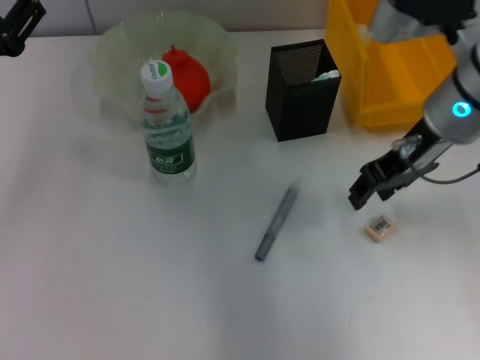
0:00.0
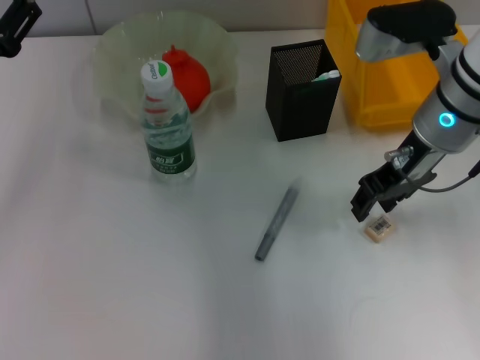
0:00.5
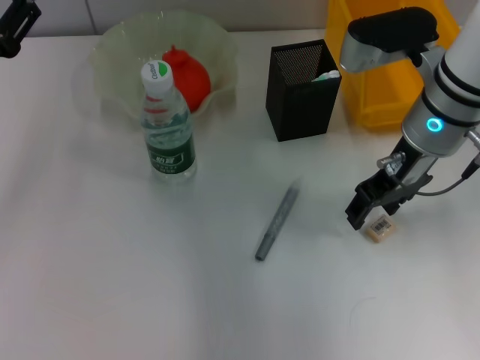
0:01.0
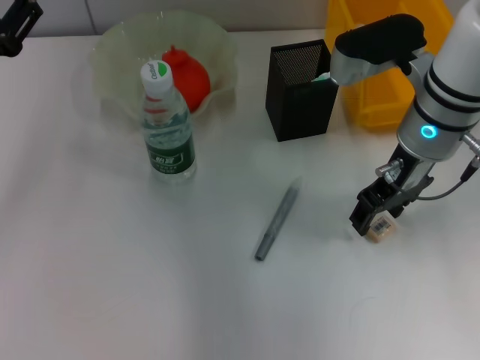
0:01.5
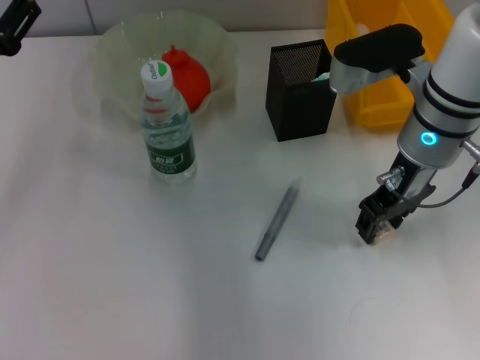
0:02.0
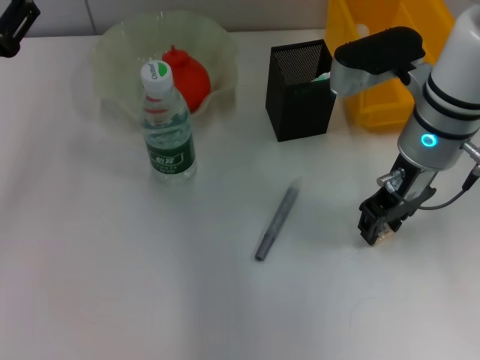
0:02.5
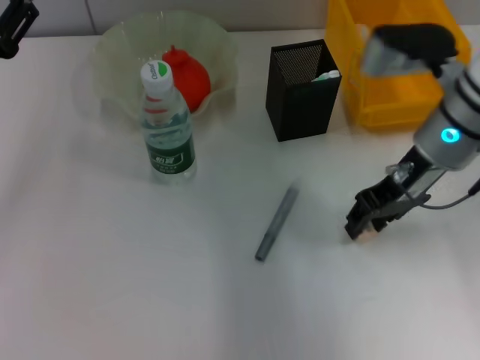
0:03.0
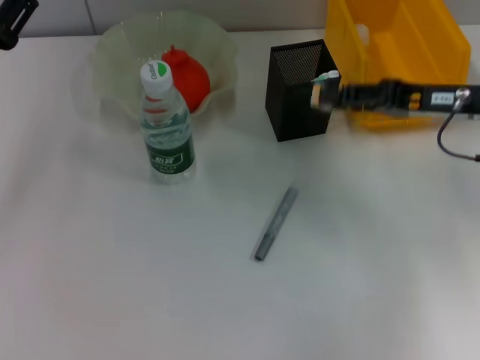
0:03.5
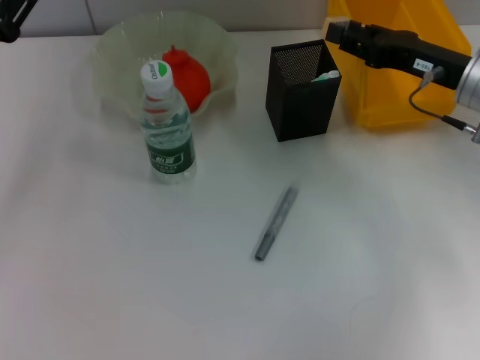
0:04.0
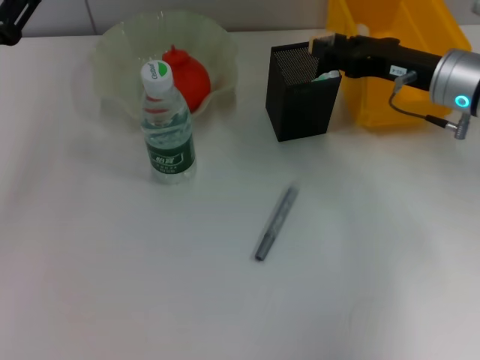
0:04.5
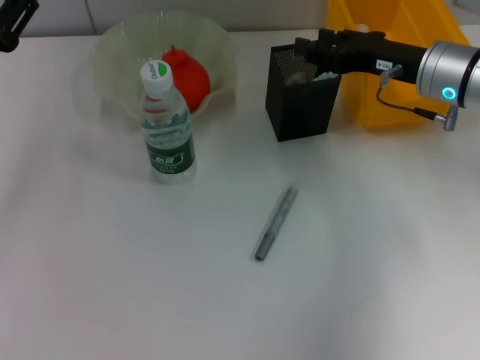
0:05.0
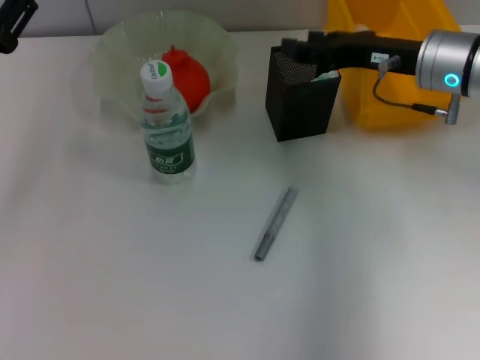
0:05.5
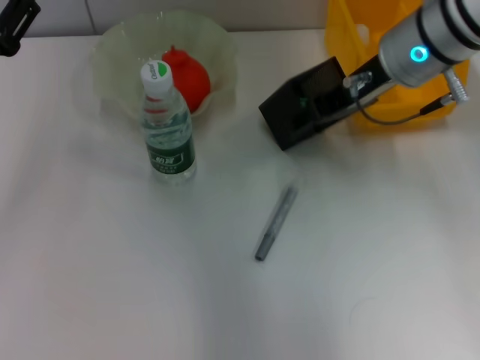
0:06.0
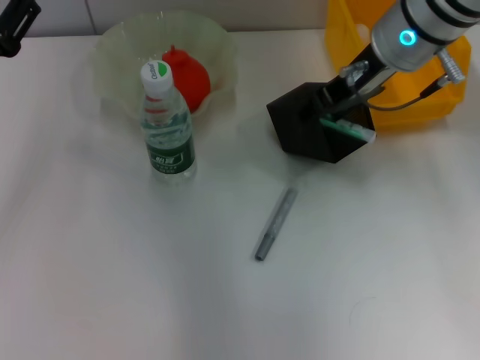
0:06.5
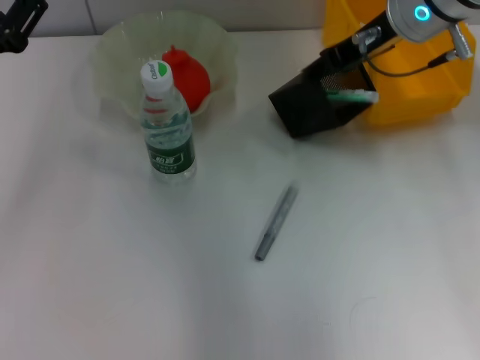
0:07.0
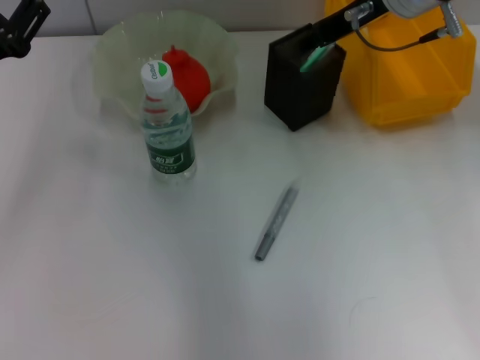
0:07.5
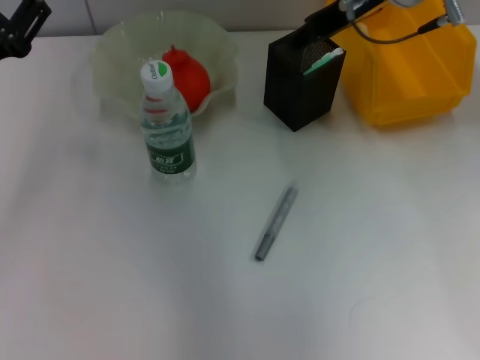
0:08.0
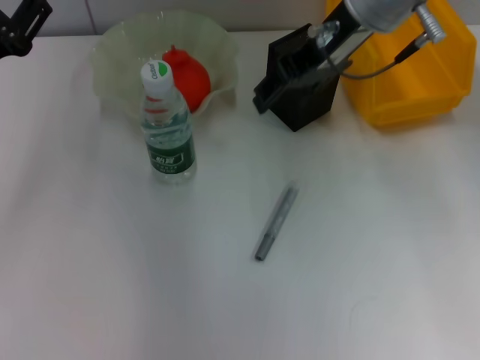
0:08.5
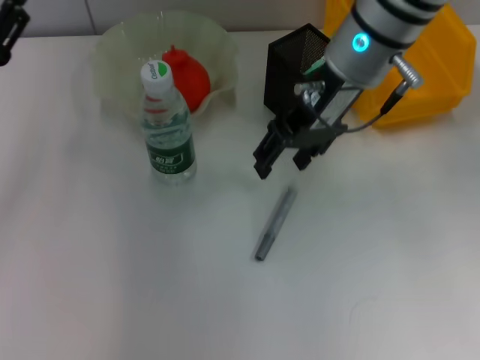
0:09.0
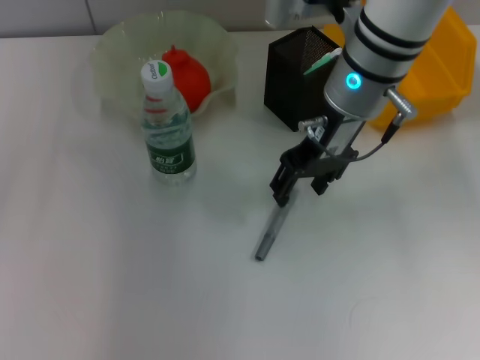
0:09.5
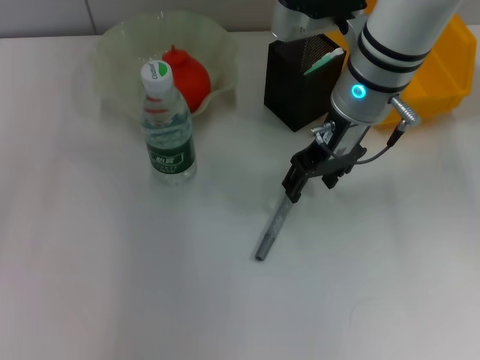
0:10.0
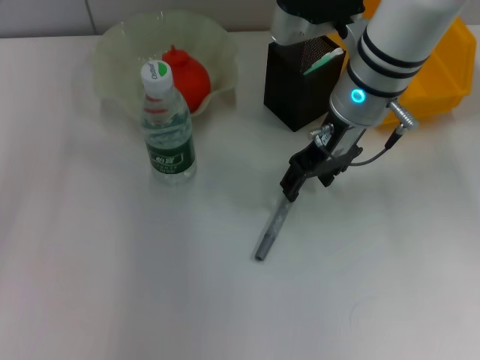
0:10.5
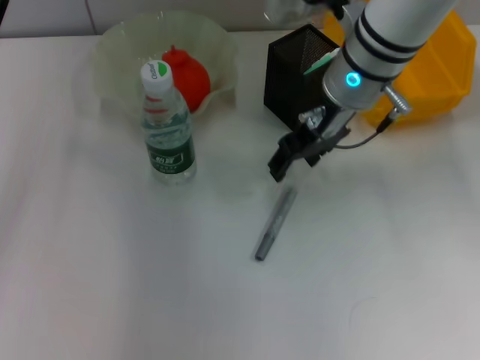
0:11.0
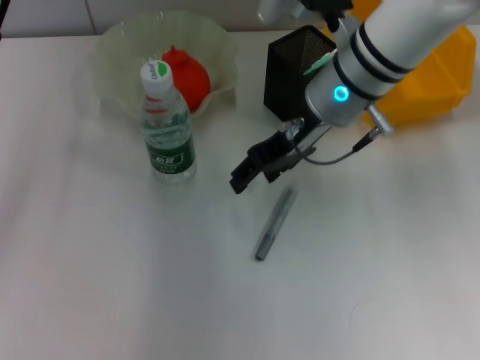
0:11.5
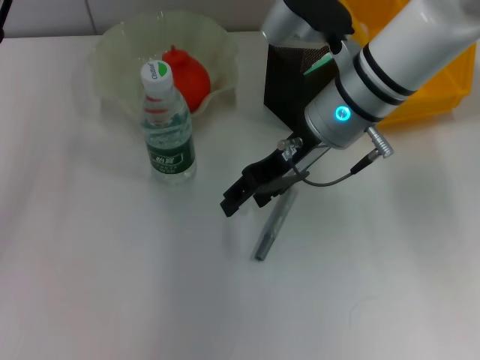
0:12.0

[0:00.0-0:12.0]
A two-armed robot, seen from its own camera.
Step, 0:00.0 to 0:02.0: Grab the eraser with the right hand.
Step, 0:02.5 to 0:05.0: Put the eraser into the pen holder with the right hand.
0:00.0 to 0:02.0: The grippers move only a little.
0:02.0 to 0:04.0: The right gripper shifts about 10 cm to the right.
0:04.0 to 0:06.0: The right gripper moves to the left and upward, about 15 cm, and opens.
0:06.0 to 0:08.0: The right gripper moves approximately 5 cm.
0:08.0 to 0:10.0: The right gripper travels downward by roughly 10 cm.

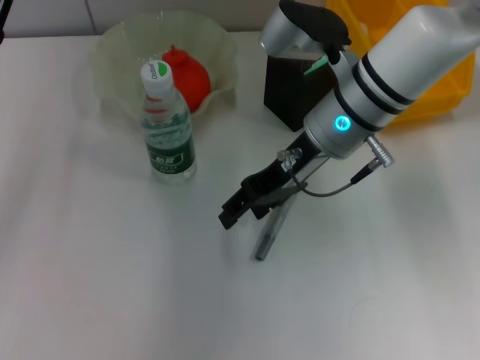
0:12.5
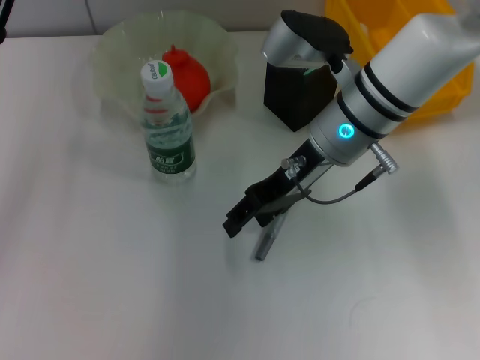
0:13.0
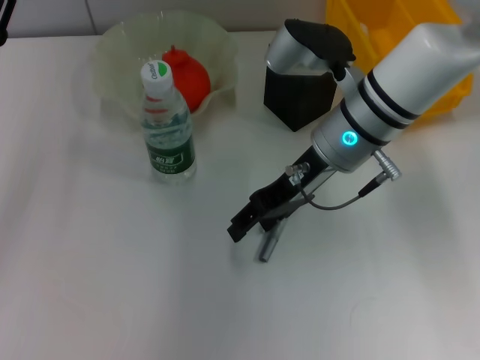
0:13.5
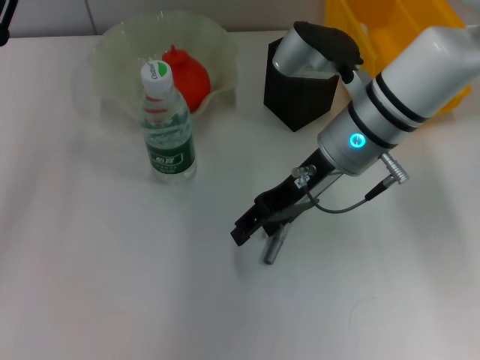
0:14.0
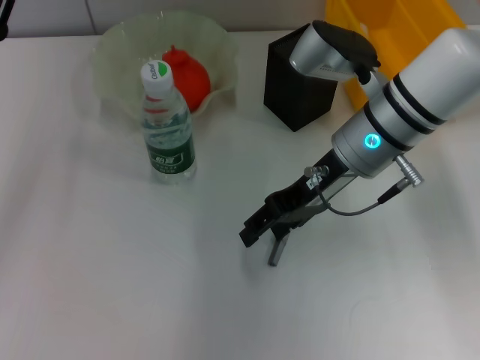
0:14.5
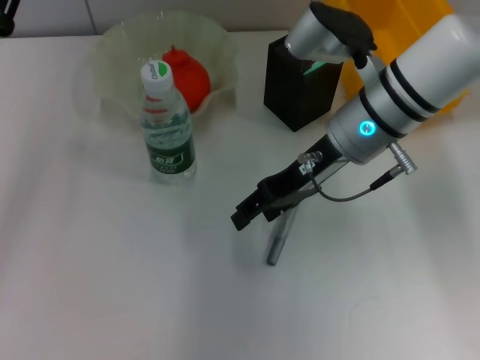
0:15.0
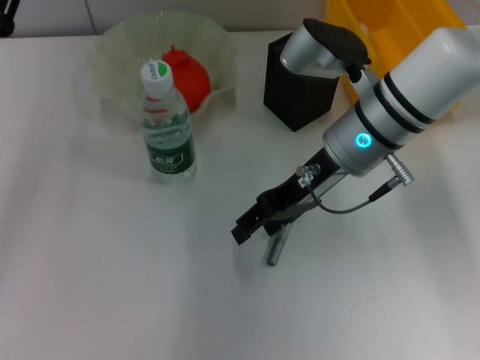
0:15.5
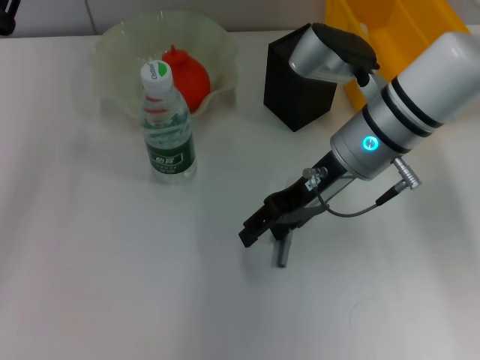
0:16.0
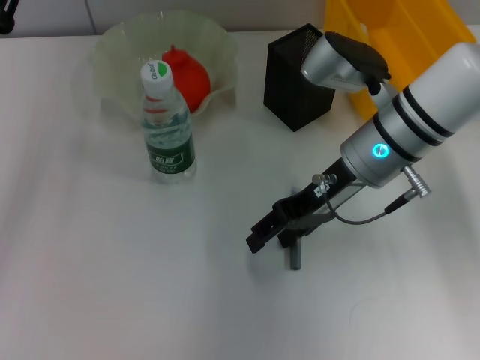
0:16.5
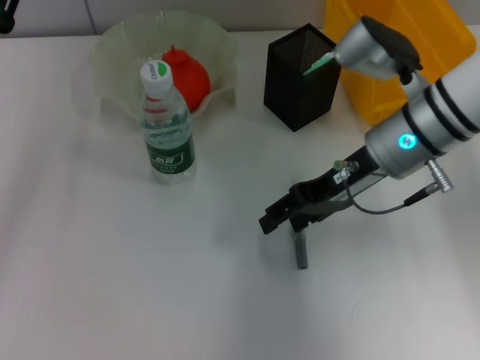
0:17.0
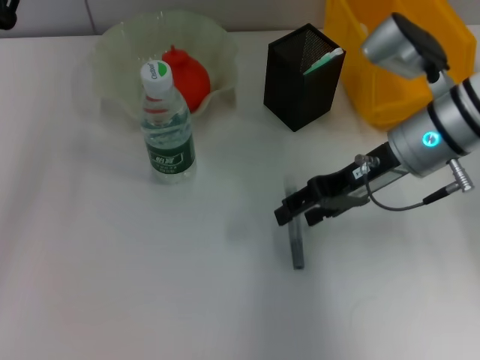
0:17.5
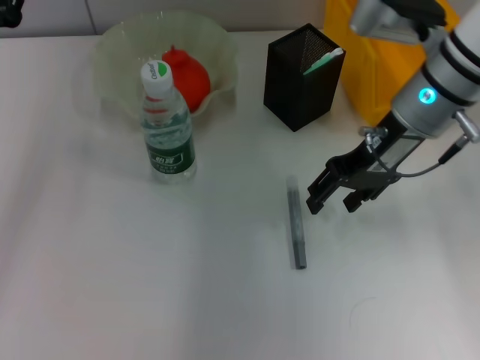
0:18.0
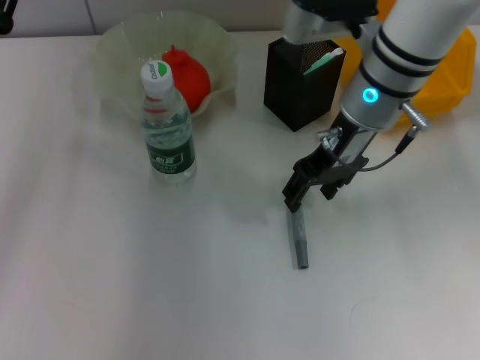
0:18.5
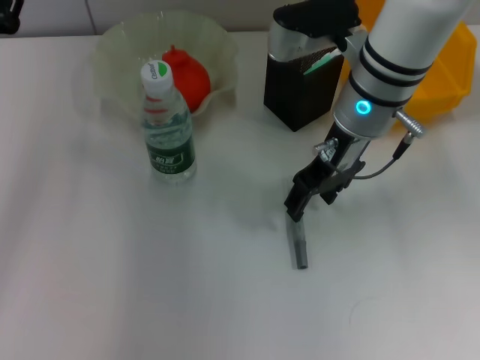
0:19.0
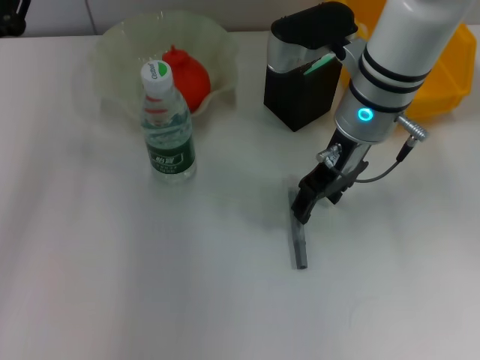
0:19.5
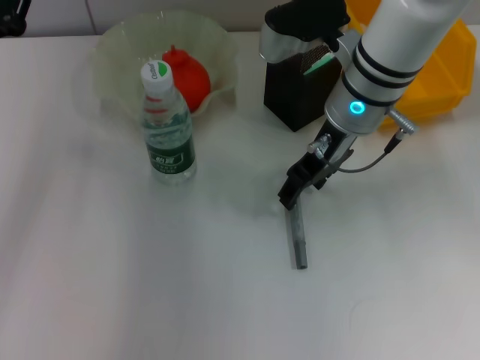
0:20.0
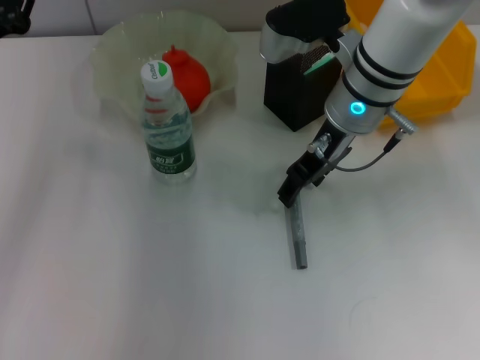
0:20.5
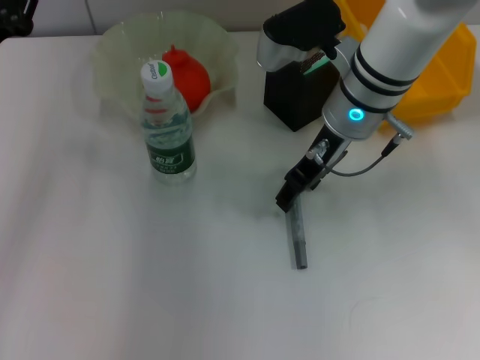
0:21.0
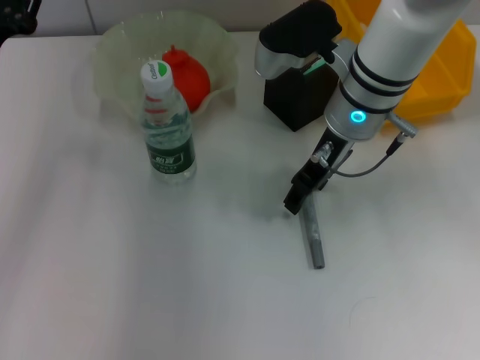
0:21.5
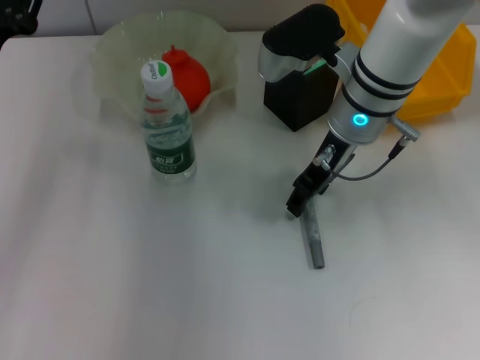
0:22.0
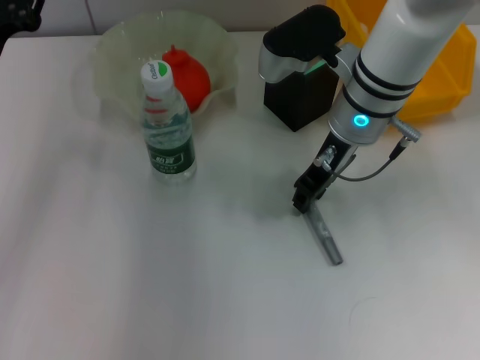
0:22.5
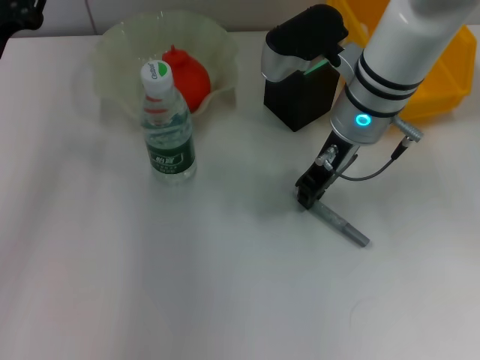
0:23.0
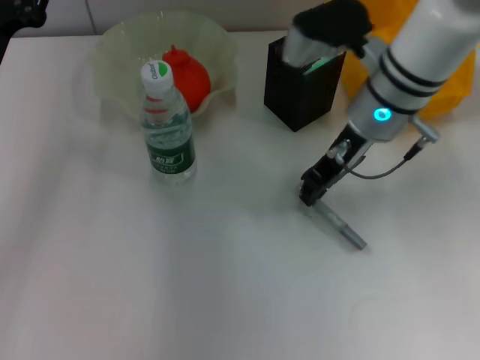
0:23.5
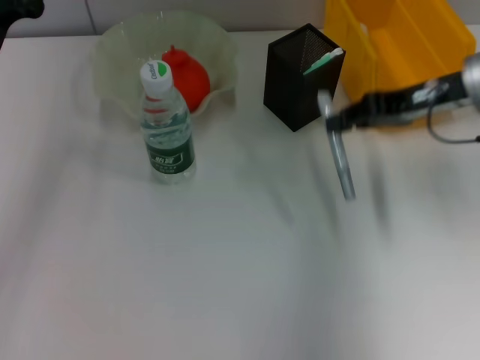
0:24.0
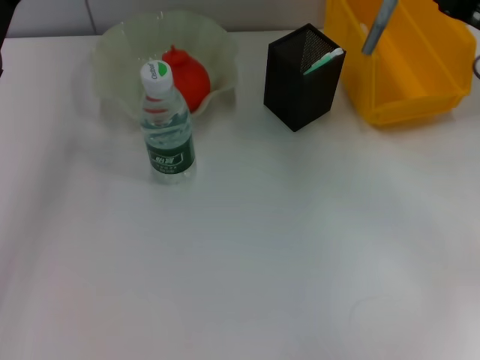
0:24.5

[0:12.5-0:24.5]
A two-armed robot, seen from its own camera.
Step, 0:12.5 to 0:23.0: Grab the gray glue with the right hand.
0:12.5 to 0:16.5: The grippers stay close to where they were, moving slightly.
0:16.5 to 0:18.5: The right gripper changes place by roughly 5 cm.
0:18.5 to 0:20.5: The grippers stay close to where they were, moving slightly.
0:20.5 to 0:22.5: The grippers stay close to where they were, moving slightly.
0:22.5 to 0:24.5: The right gripper is displaced to the right by some 20 cm, and closes.

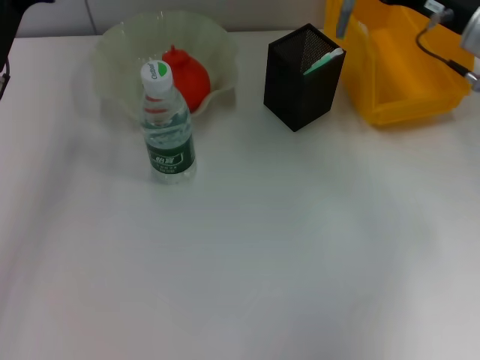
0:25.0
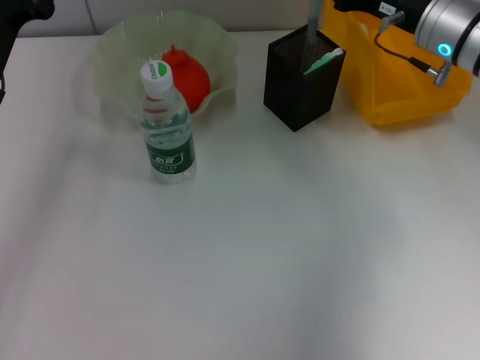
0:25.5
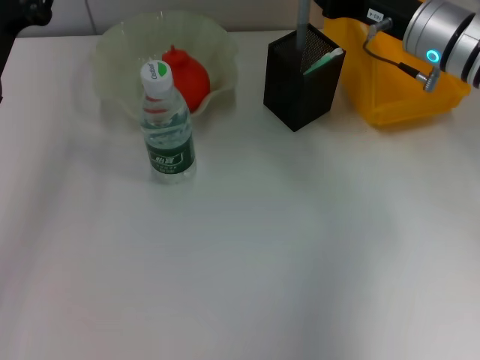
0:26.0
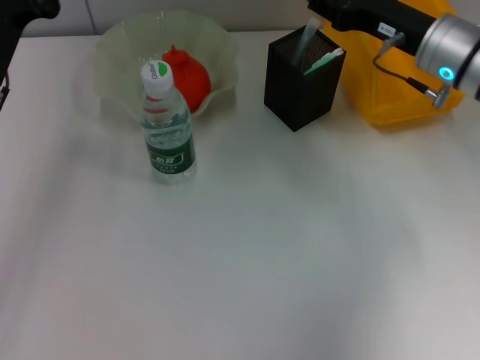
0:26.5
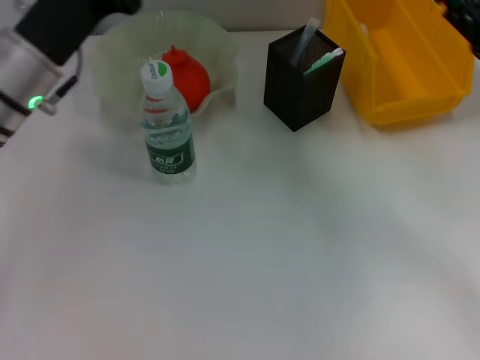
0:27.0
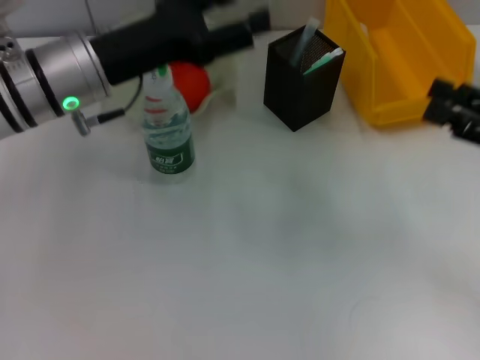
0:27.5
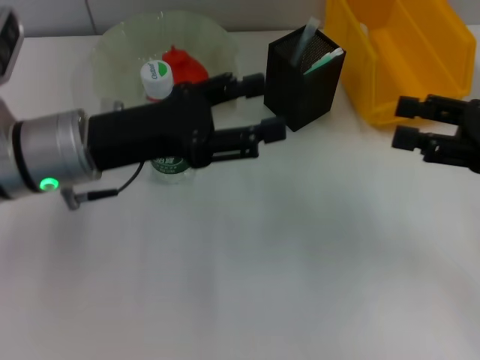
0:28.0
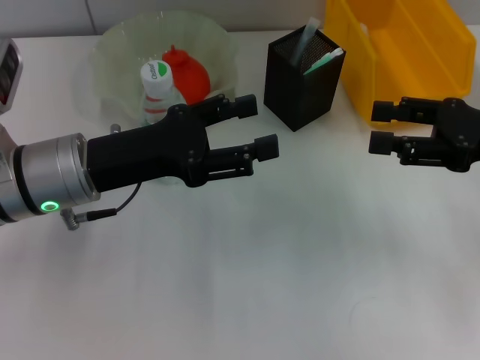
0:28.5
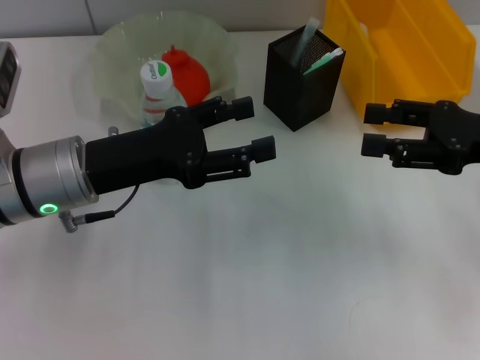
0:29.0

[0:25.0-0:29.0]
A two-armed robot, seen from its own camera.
0:25.0 to 0:27.0: The right gripper travels backward and to the right by roughly 10 cm, and opens up.
0:27.0 to 0:29.0: The left gripper is displaced backward by approximately 5 cm. The right gripper opens.
